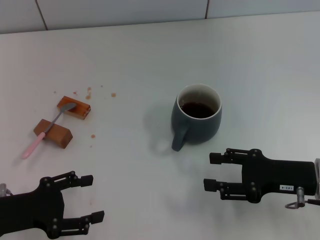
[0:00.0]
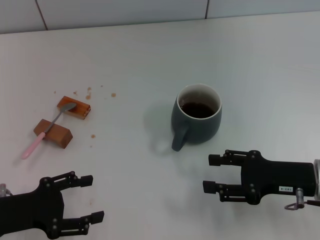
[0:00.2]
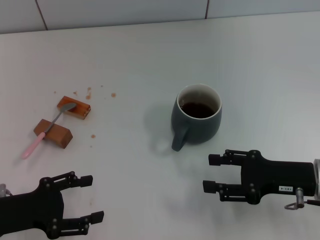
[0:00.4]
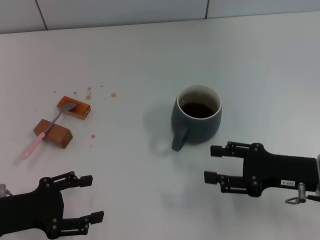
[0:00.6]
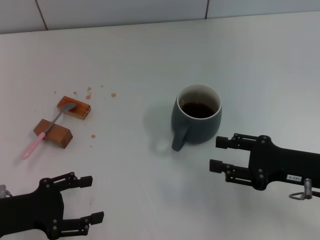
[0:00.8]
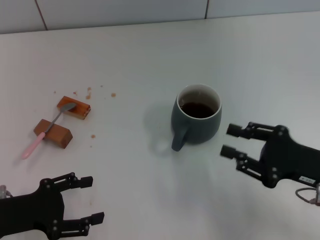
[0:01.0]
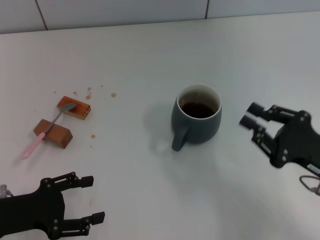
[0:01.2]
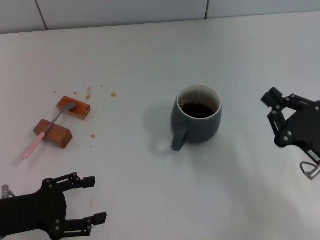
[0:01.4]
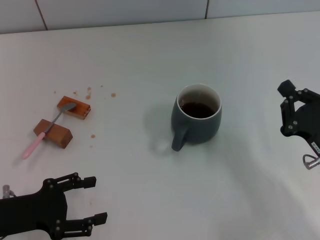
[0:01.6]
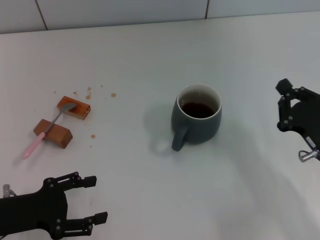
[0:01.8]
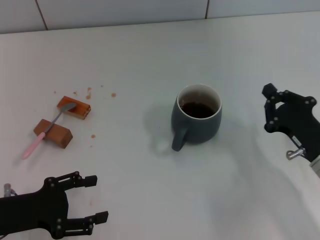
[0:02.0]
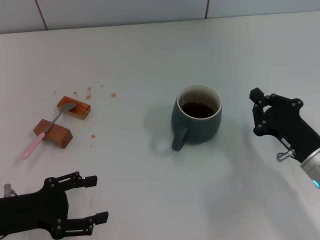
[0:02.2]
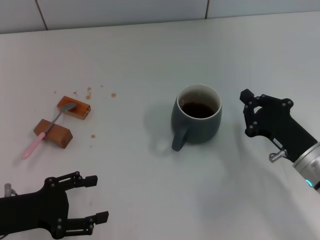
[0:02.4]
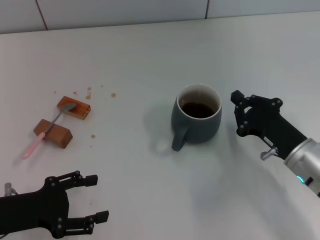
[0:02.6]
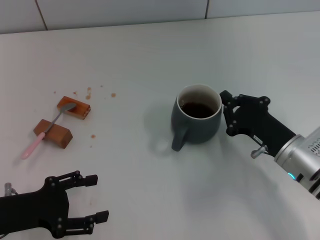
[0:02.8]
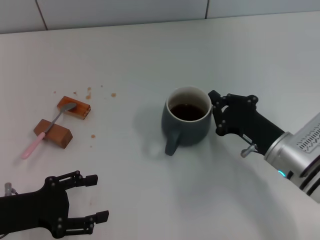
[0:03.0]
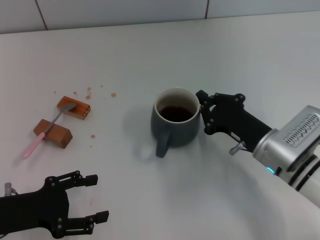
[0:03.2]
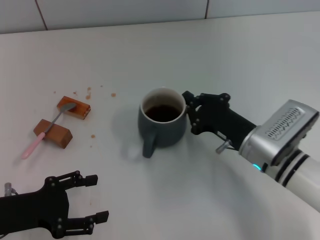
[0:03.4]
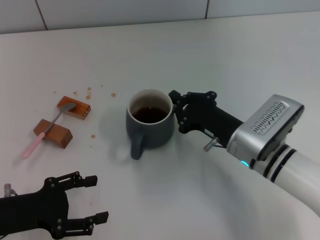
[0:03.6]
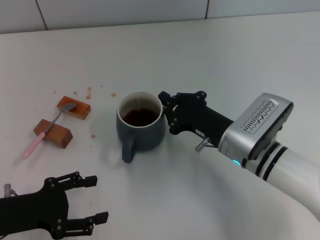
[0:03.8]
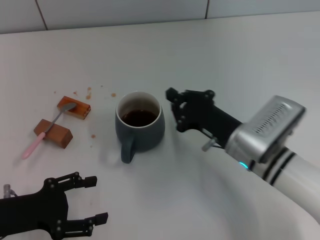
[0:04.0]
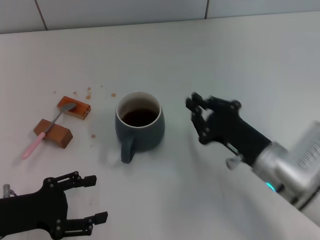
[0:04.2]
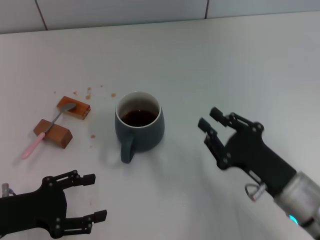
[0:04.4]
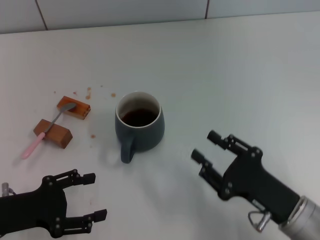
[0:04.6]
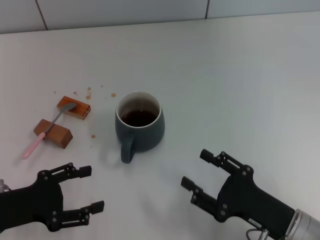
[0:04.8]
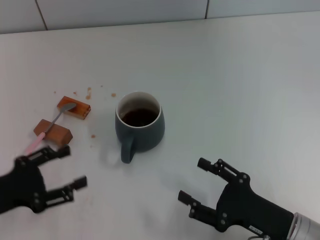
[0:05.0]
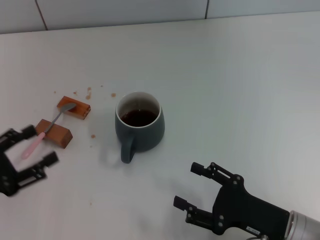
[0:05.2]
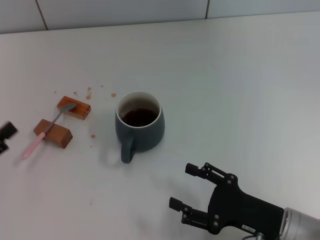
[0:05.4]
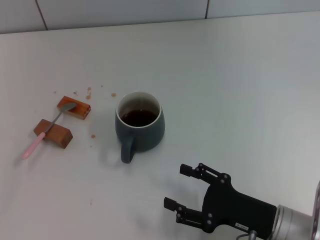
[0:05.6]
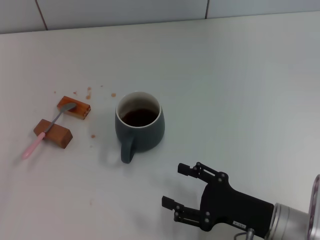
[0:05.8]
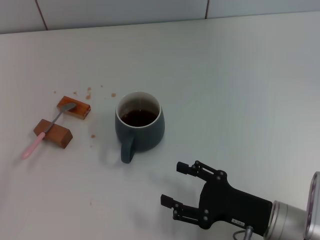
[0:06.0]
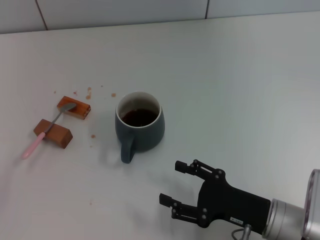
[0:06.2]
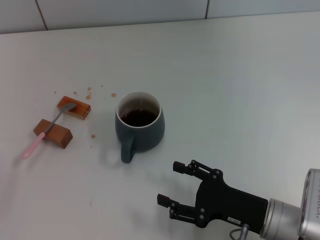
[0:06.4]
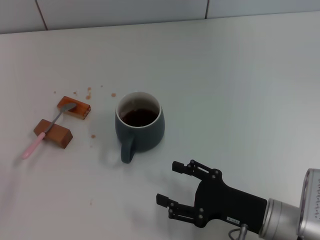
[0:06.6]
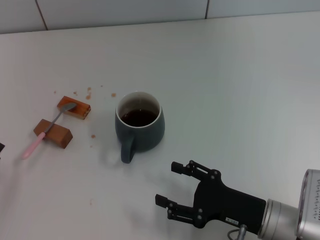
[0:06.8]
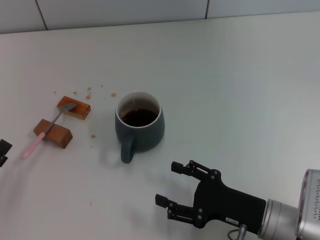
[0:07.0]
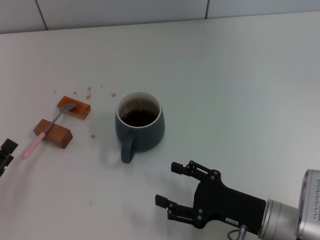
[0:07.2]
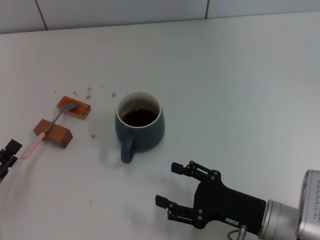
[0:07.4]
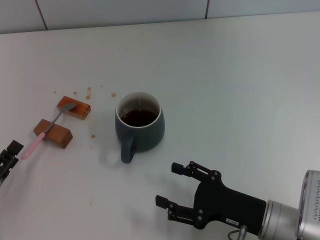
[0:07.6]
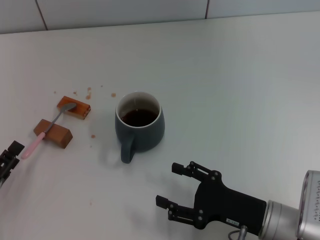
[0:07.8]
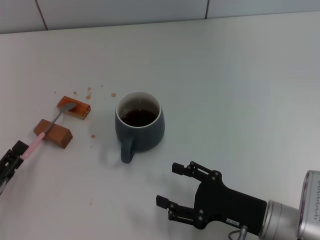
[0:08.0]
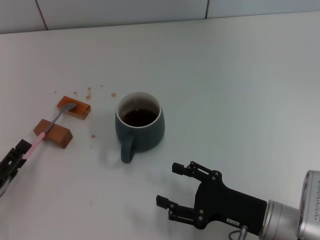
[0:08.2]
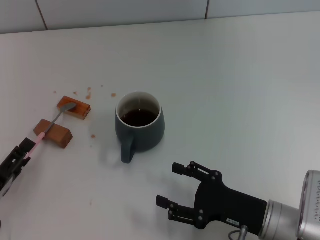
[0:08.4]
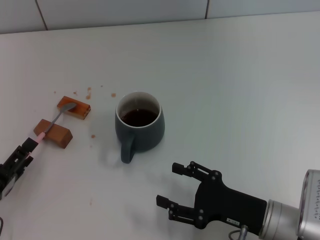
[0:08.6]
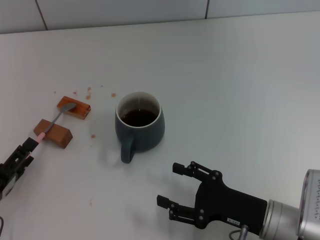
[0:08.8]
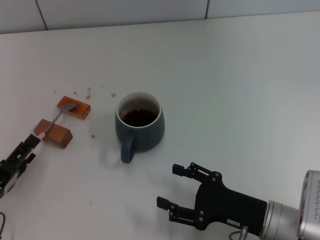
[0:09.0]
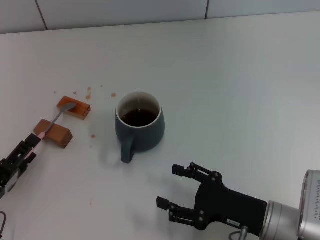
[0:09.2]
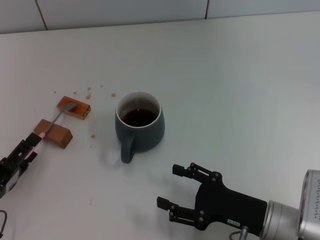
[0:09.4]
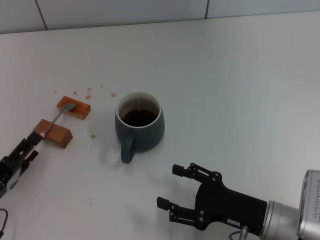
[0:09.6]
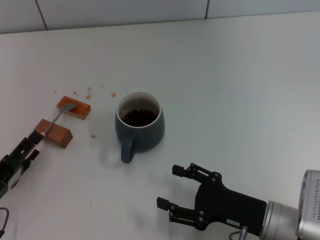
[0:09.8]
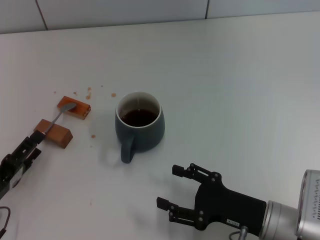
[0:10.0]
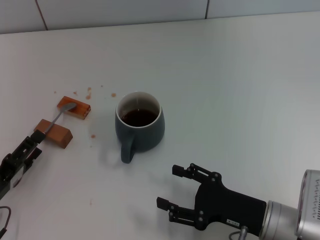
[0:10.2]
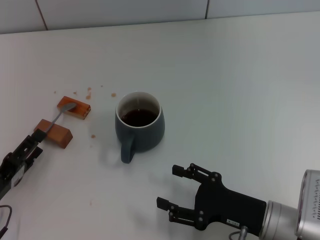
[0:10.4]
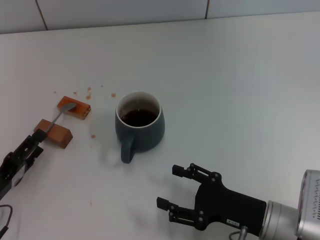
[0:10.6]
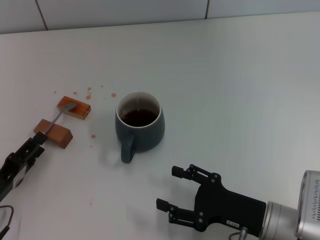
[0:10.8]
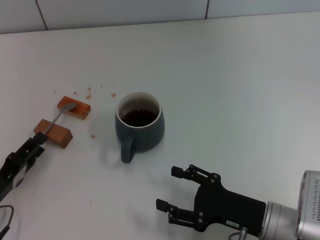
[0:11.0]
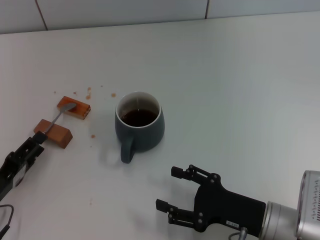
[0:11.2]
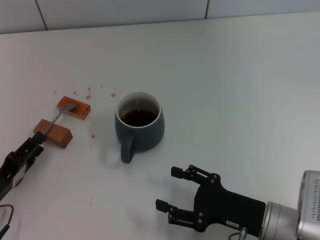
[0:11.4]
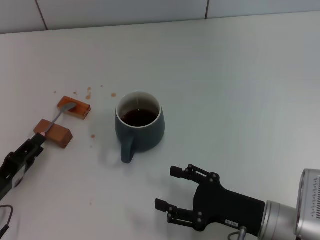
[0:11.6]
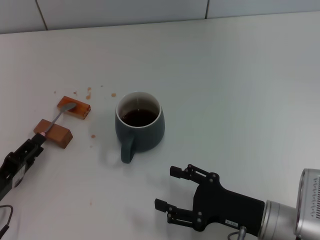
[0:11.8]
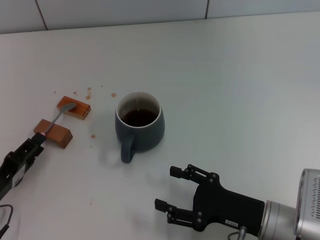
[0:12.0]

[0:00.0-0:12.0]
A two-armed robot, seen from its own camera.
Task of the whole recording: Move the grey cup to the center, lift the pink spoon, stir it three times in the cup, and put the spoon into the cup.
Step, 0:00.0 to 0:03.8: Move the cup with coffee to the center of view with the right gripper.
0:00.0 to 0:01.6: The right gripper closes.
0:01.6 to 0:03.0: The right gripper travels to the left and forward by approximately 10 cm.
0:03.0 to 0:04.4: The right gripper moves backward, some 5 cm.
0:04.4 to 0:06.0: The right gripper opens; the left gripper travels to the left and backward by roughly 10 cm.
0:06.0 to 0:07.6: The left gripper ends up about 5 cm from where it was.
0:07.6 to 0:10.4: The grippers make only small movements.
0:10.4 to 0:12.0: The left gripper closes.

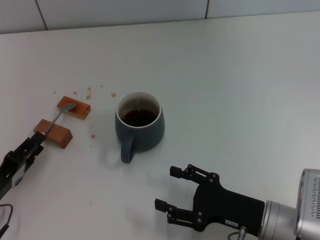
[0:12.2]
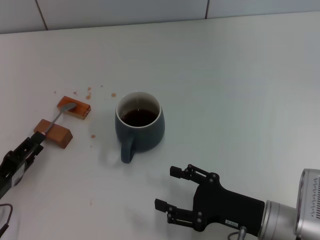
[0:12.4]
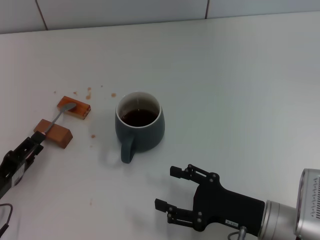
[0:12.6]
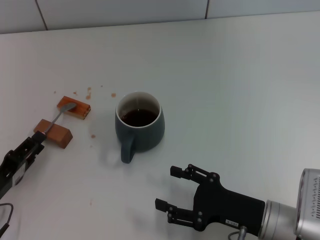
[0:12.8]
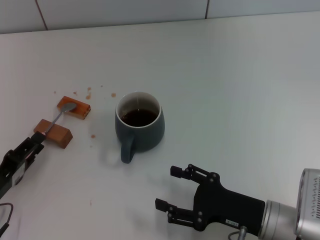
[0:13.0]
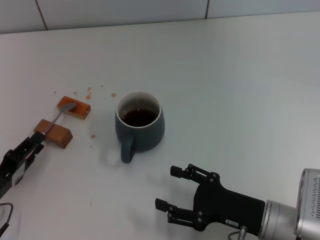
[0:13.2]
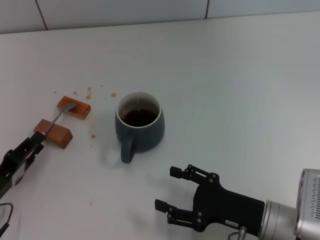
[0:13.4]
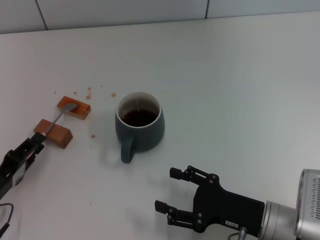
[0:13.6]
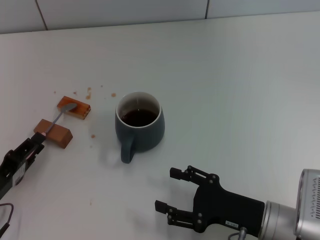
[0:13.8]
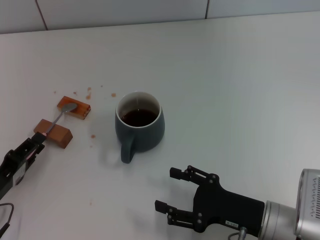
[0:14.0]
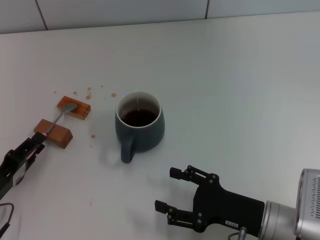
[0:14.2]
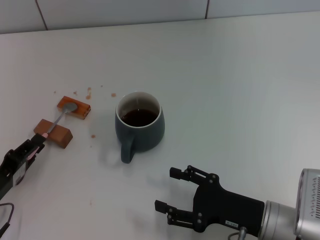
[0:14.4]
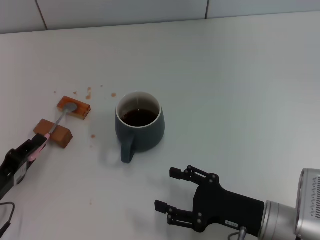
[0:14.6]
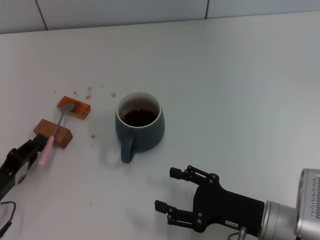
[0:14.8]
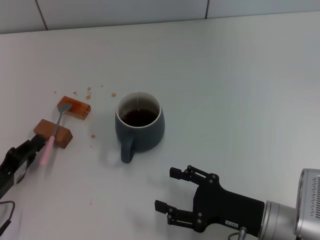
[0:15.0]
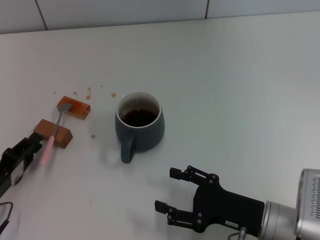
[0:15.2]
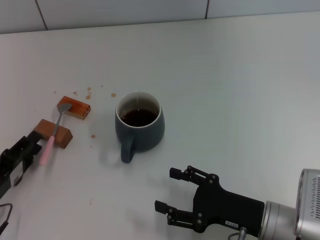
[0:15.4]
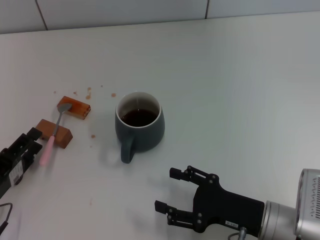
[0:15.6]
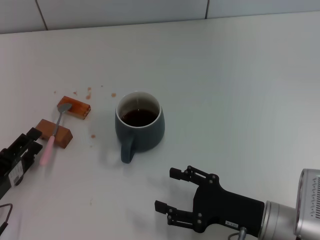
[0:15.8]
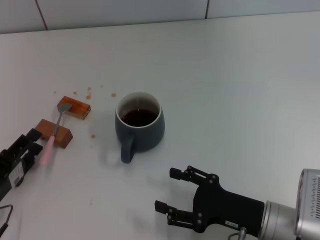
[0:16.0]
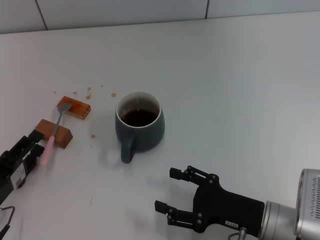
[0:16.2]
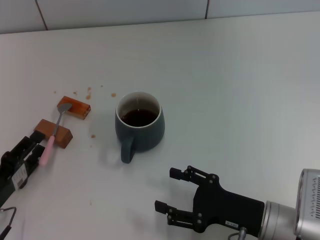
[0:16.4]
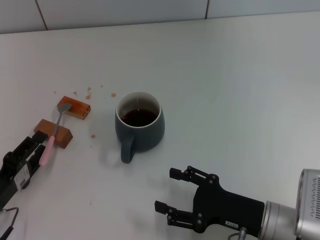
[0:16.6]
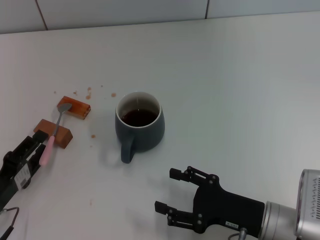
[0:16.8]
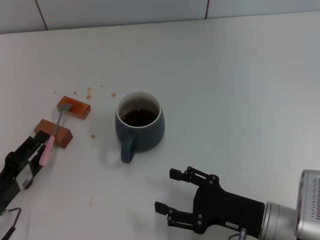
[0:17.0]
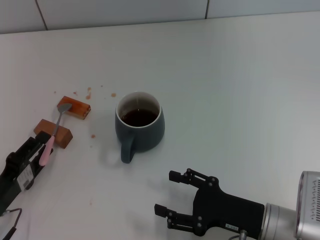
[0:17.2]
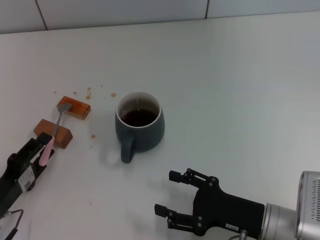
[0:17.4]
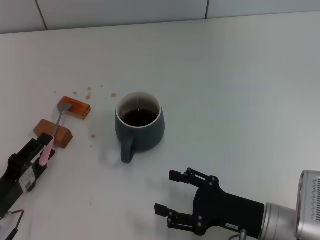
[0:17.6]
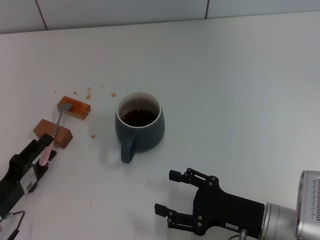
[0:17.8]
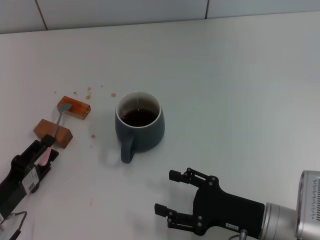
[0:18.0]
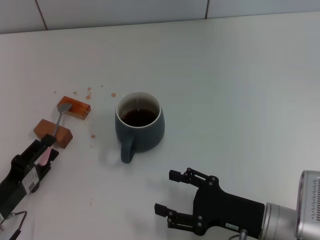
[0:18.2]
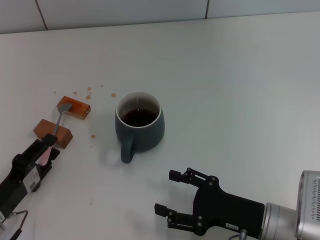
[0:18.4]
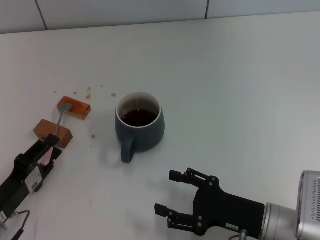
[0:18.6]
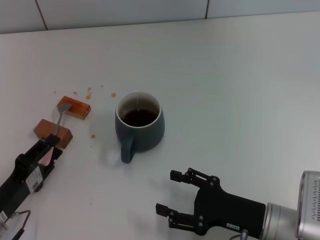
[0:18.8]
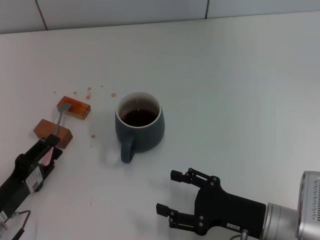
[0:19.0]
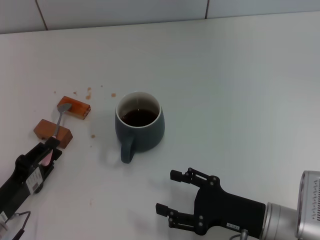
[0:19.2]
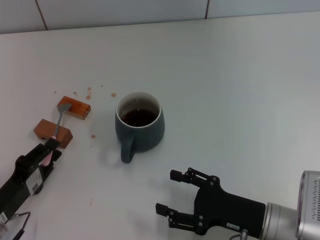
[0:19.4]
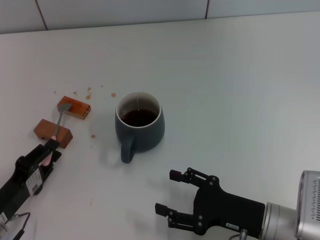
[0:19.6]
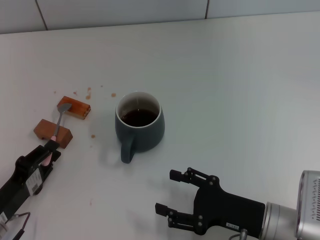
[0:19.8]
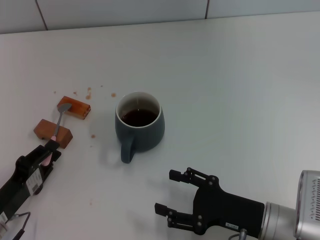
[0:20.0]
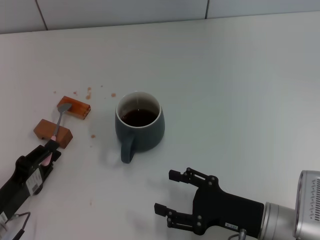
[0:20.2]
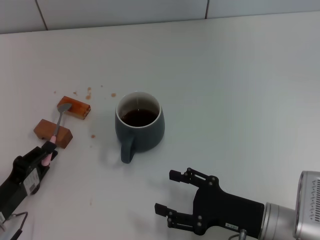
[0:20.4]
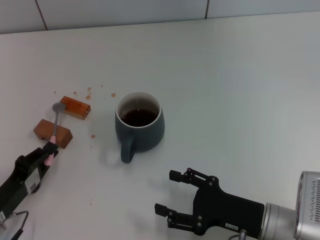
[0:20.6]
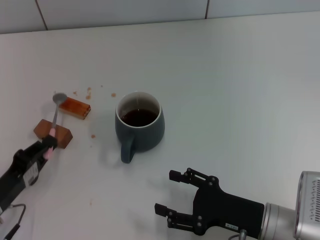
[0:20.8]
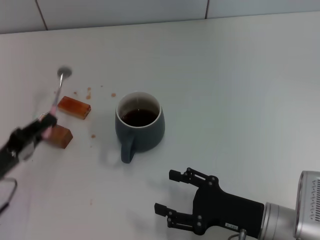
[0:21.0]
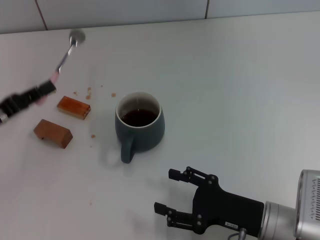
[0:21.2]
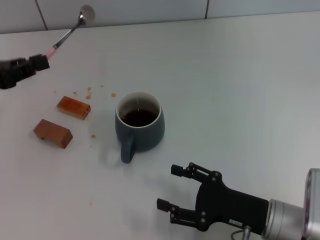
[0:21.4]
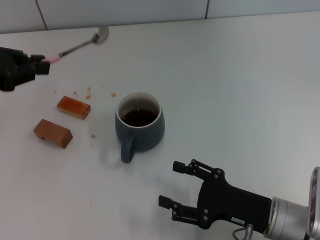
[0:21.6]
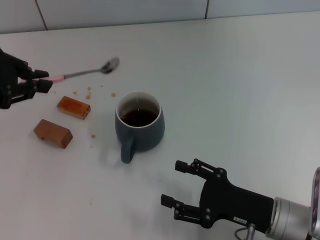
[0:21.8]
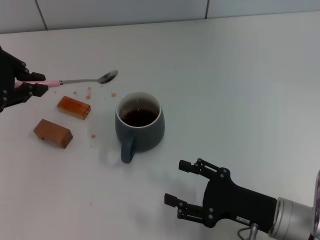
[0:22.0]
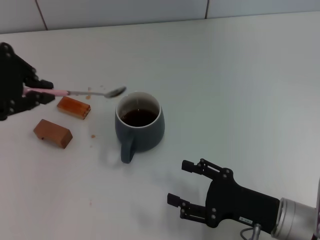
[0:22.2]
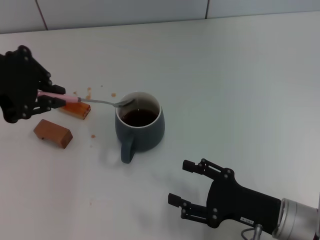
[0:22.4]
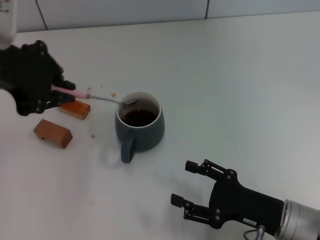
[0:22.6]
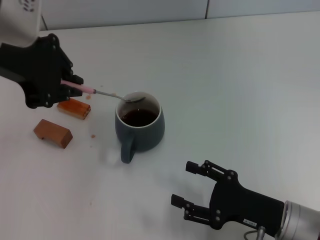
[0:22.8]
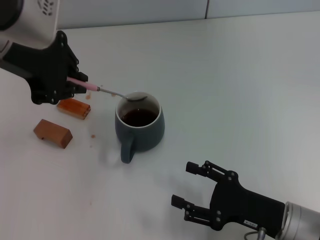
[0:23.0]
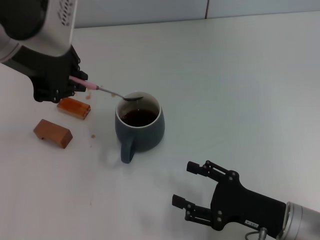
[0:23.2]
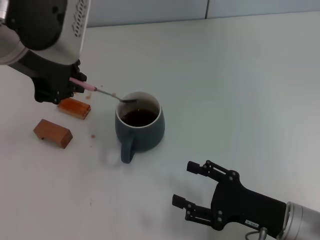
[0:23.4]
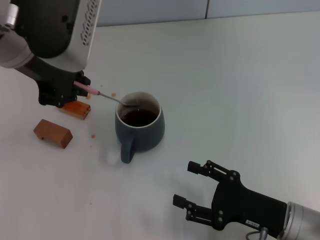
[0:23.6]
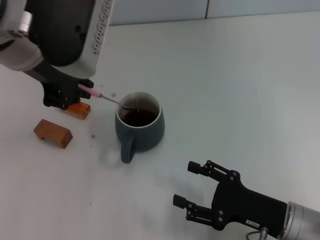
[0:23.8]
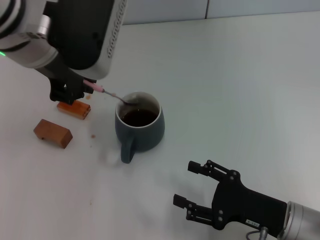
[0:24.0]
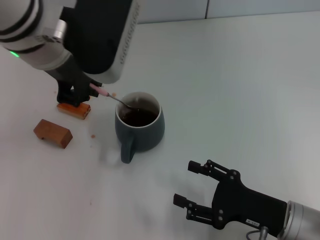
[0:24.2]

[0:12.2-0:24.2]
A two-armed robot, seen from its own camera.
Task of the whole recording: Move the grey cup to the center, lift the pink spoon, stir it three times in the cup, and put the spoon into the cup.
Step, 0:12.2 to 0:20.6: Pick up the spoon with the left gripper.
0:12.2 to 0:15.2: Both grippers stay put.
0:15.2 to 0:16.6: The left gripper opens.
0:16.6 to 0:18.2: The two grippers keep their place.
0:18.2 to 0:19.8: Both grippers stay about where they are.
0:19.8 to 0:21.2: The left gripper moves upward and forward, some 15 cm.
0:21.2 to 0:22.6: The left gripper is displaced upward and to the right by about 25 cm.
0:22.6 to 0:24.2: The left gripper moves to the right, some 10 cm.
